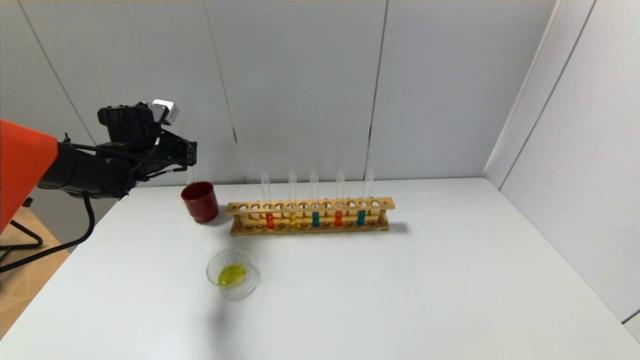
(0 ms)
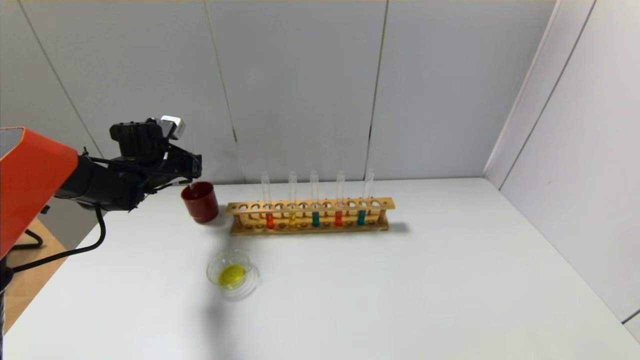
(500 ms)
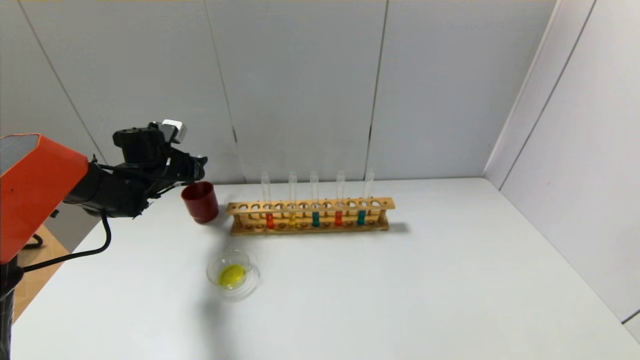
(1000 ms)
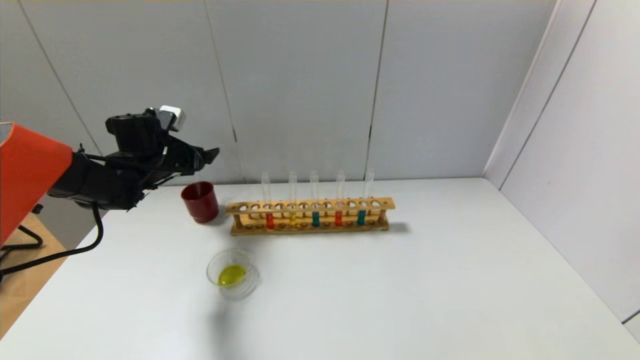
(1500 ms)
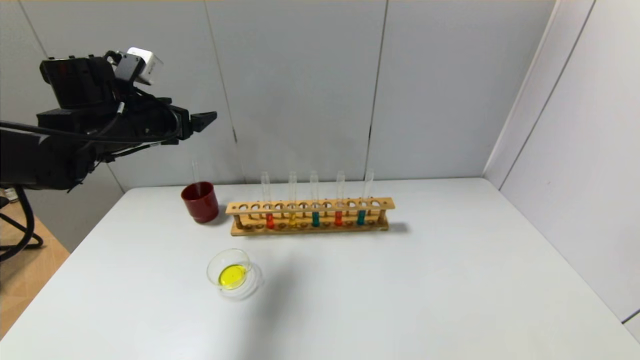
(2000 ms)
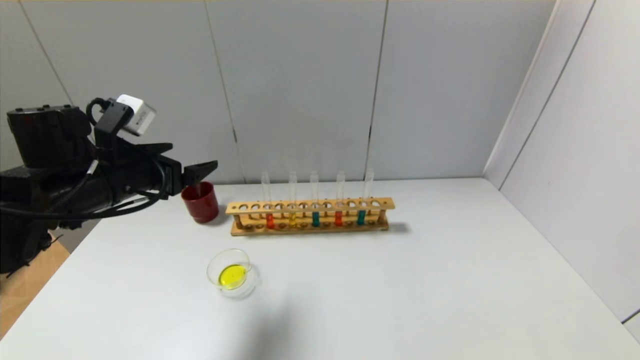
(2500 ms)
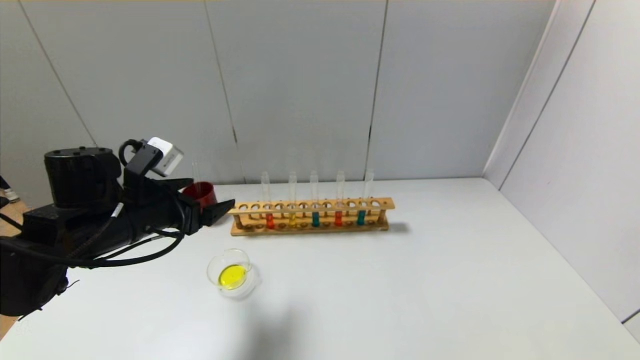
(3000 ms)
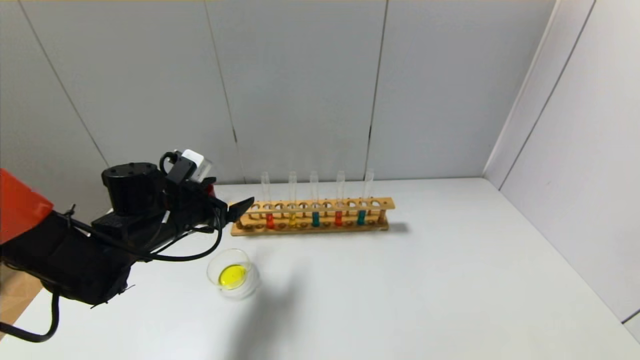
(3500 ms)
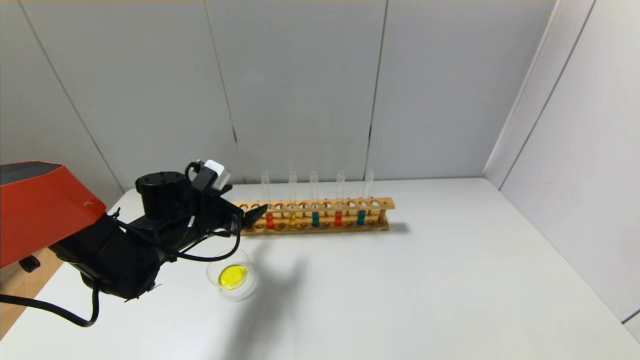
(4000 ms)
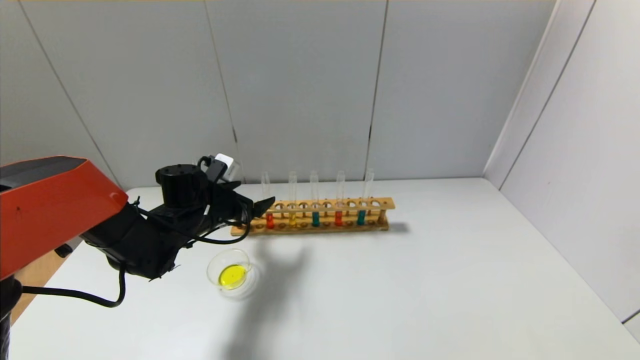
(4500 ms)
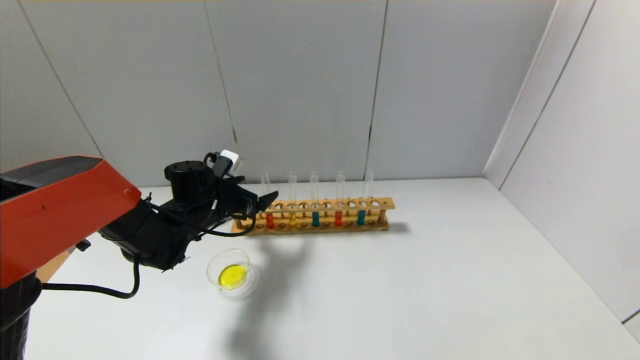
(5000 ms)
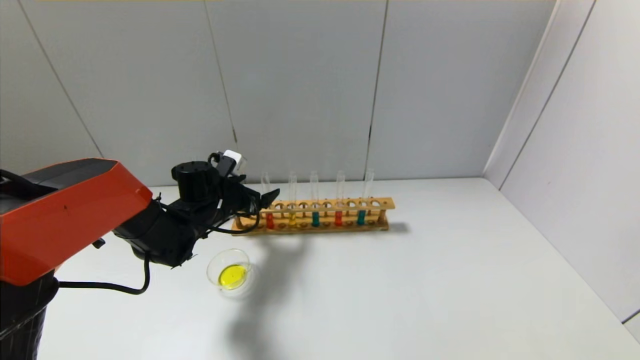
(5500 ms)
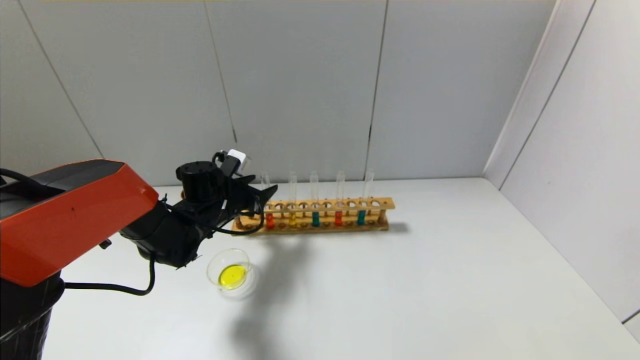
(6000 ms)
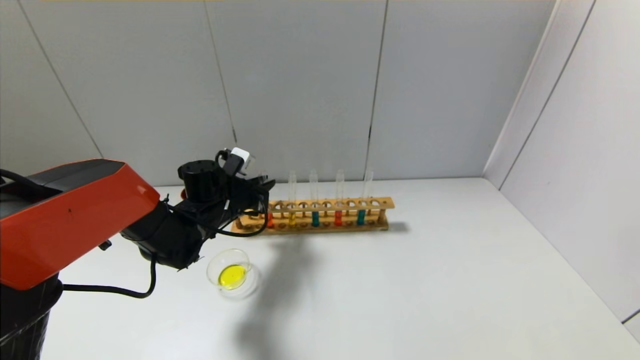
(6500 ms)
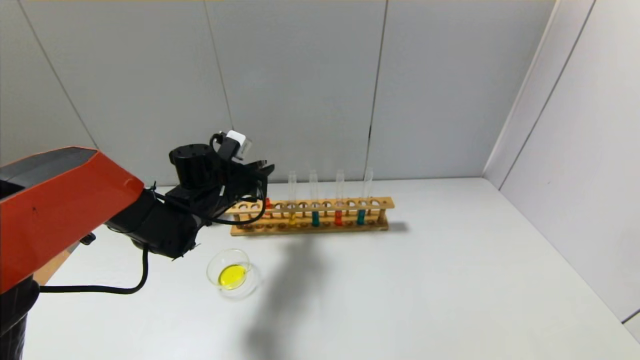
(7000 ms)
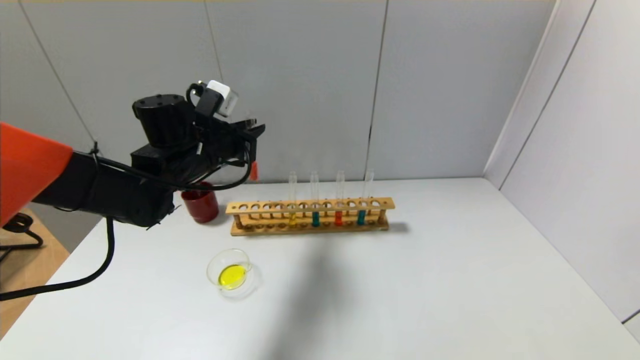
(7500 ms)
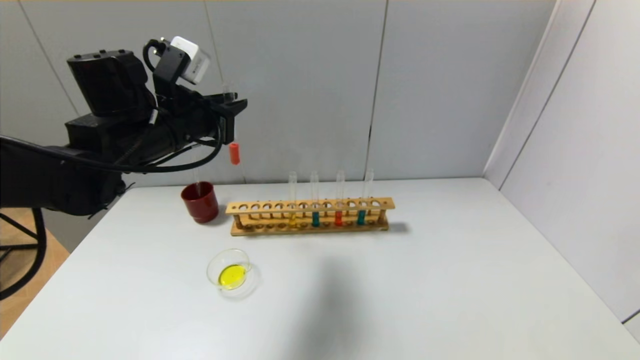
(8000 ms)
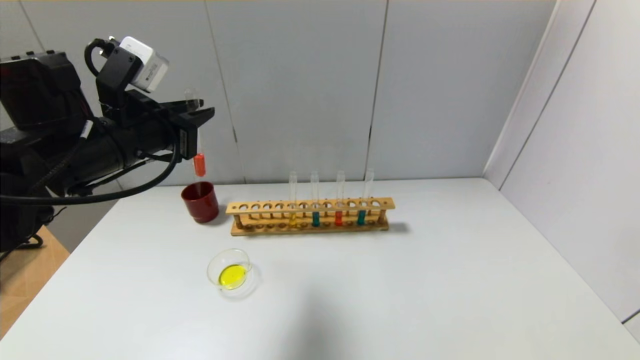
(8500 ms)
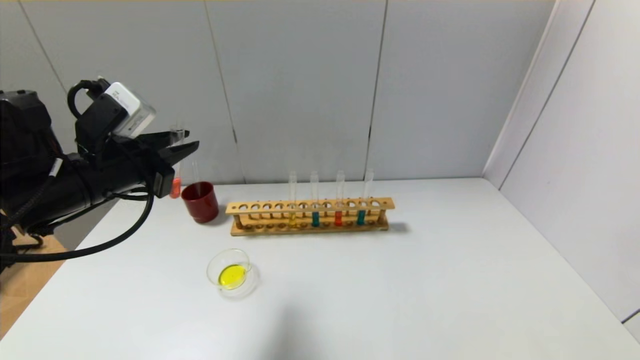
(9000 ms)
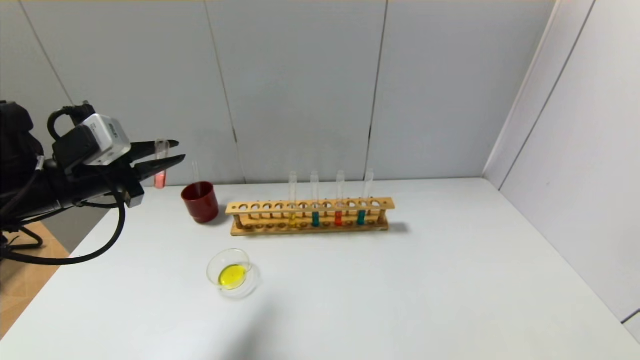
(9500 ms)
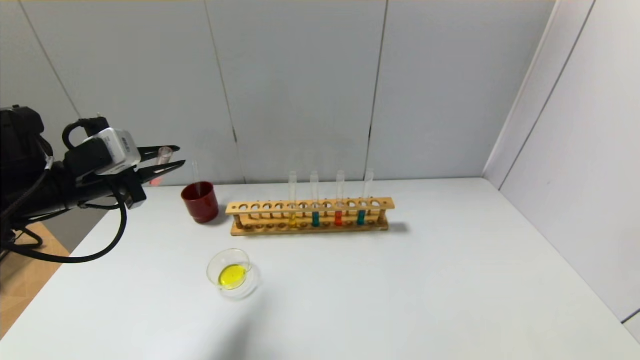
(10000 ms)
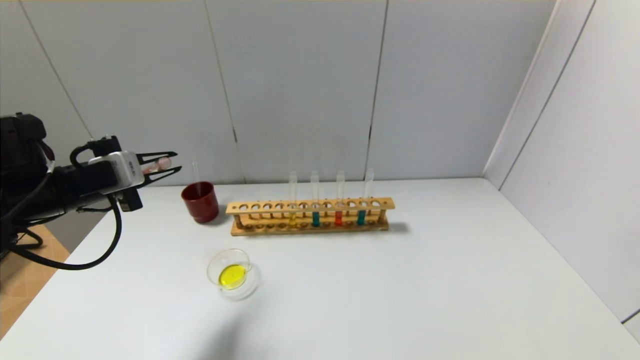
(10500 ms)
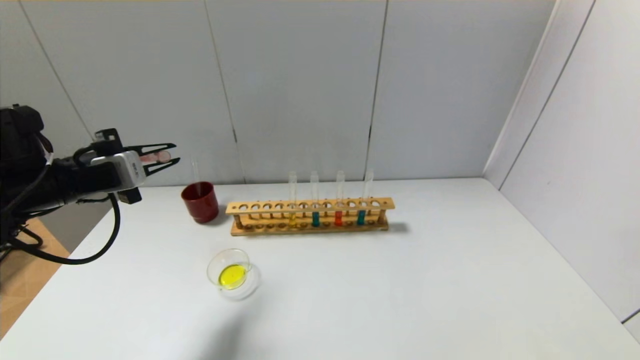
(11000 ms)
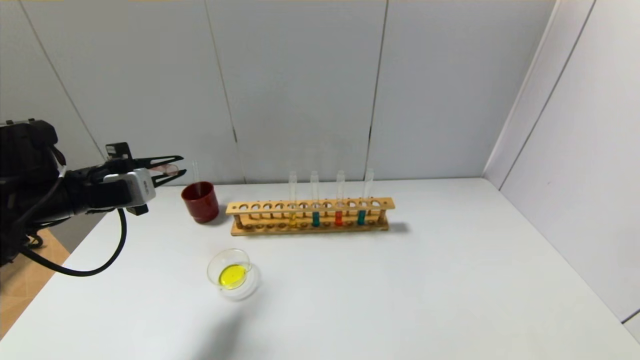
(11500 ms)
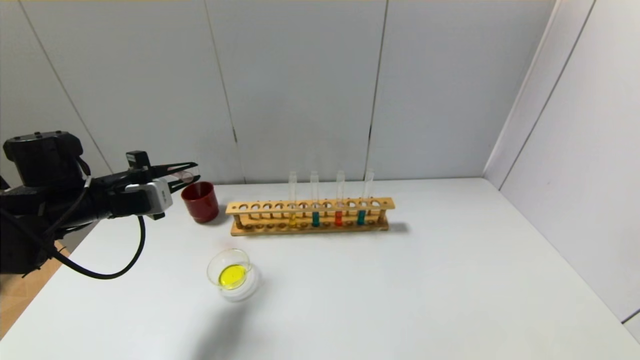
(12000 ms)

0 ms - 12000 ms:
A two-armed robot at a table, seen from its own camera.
Step, 1500 ms - 6000 ms: Grasp the red reagent with the left gripper.
0 ms - 2000 ms: The left gripper goes roughly 10 cm upward and backward, and opens up.
2000 ms - 4000 ms: The left gripper is displaced downward and to the right by approximately 15 cm.
4000 ms - 6000 ms: The left gripper goes some 5 cm forward, and closes up.
6000 ms - 8000 ms: The left gripper is displaced upward and backward by approximately 20 cm, and closes its fingers.
8000 ms - 10000 ms: The left gripper is displaced to the left and downward by about 15 cm.

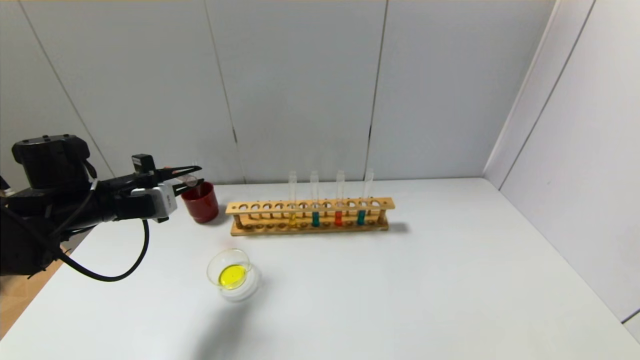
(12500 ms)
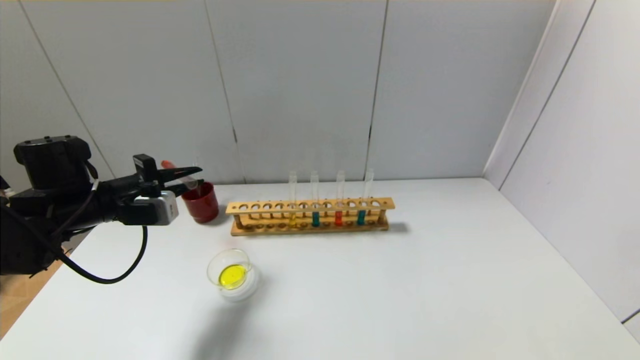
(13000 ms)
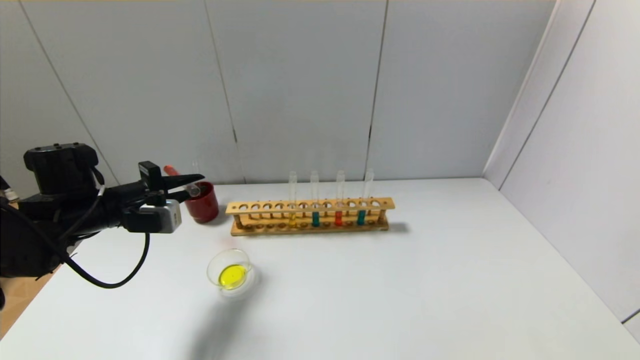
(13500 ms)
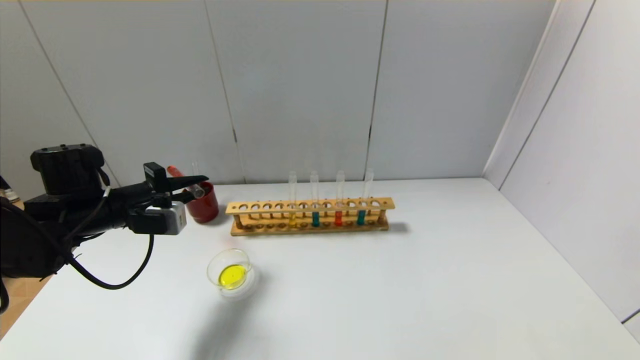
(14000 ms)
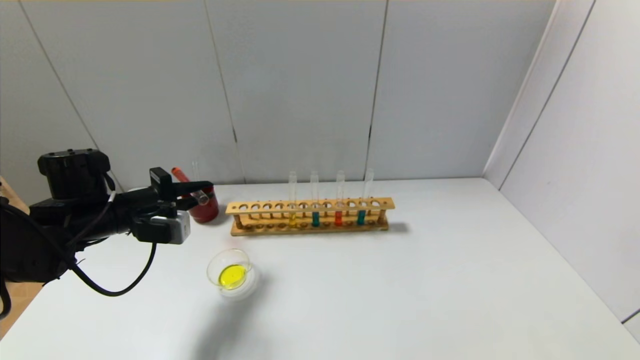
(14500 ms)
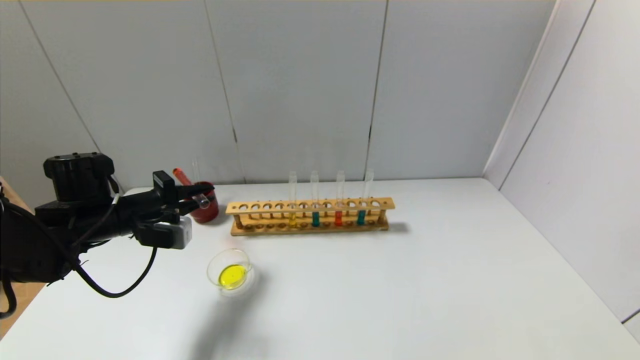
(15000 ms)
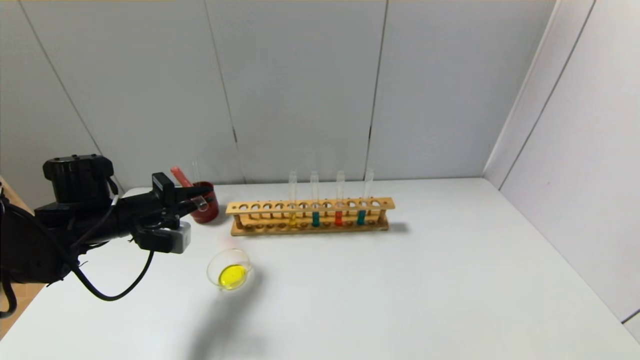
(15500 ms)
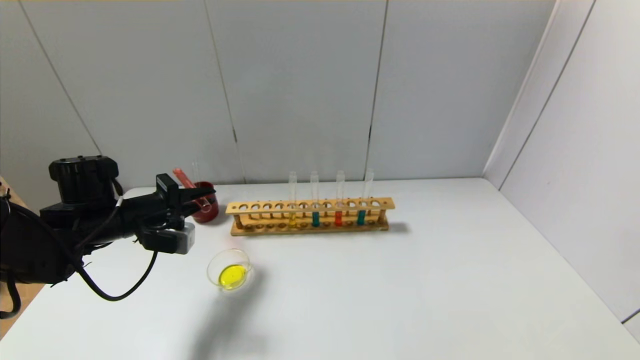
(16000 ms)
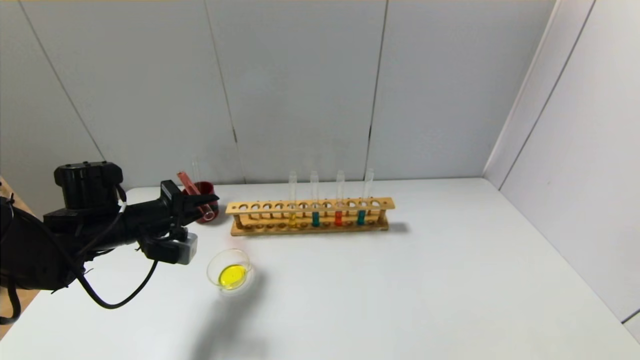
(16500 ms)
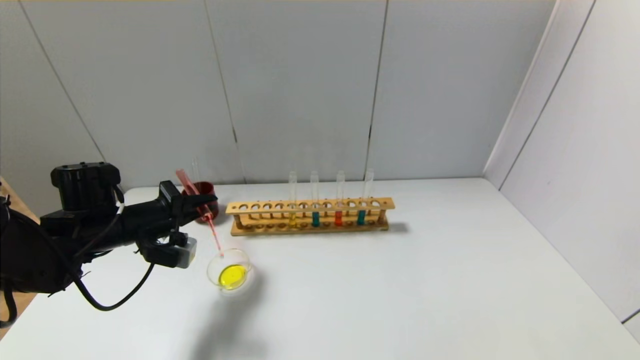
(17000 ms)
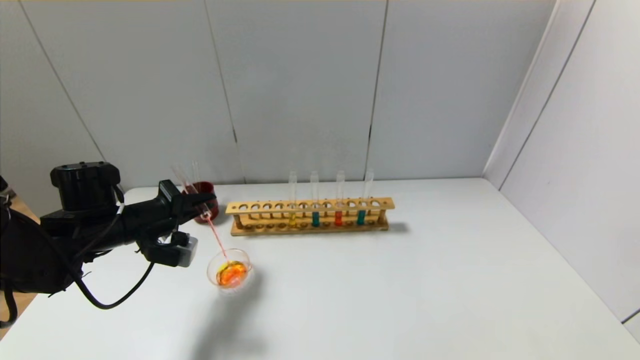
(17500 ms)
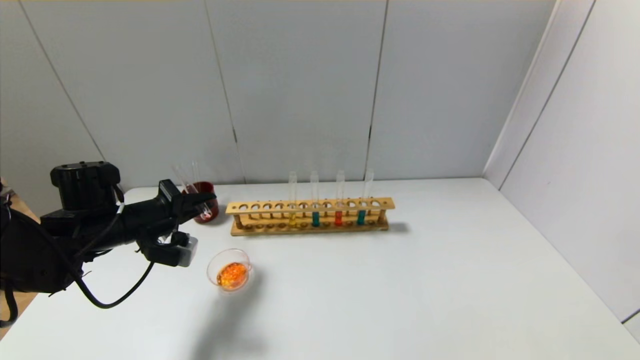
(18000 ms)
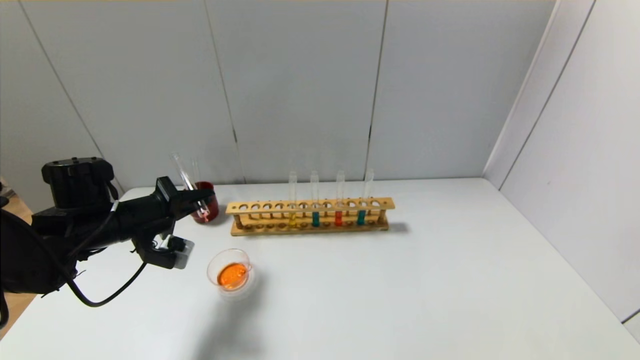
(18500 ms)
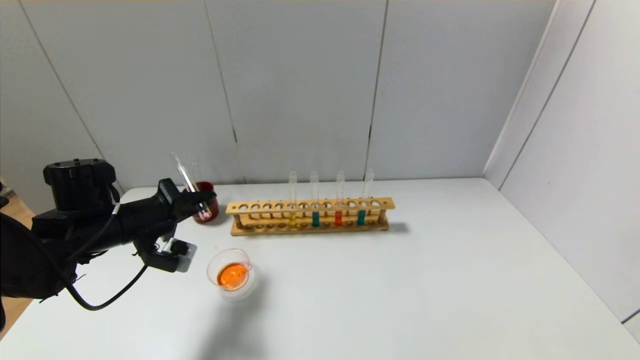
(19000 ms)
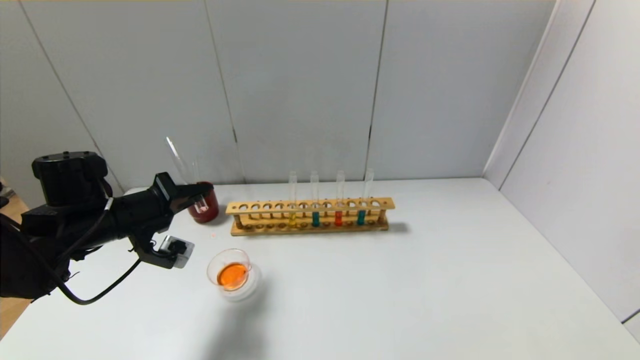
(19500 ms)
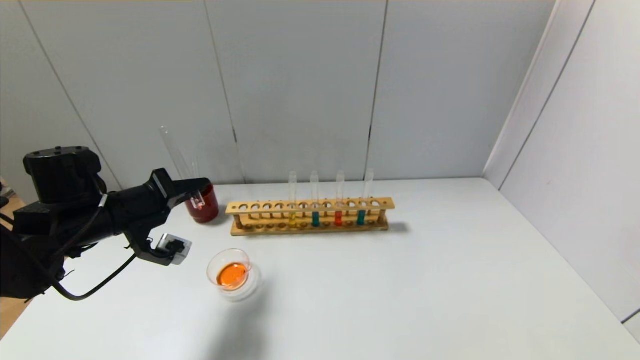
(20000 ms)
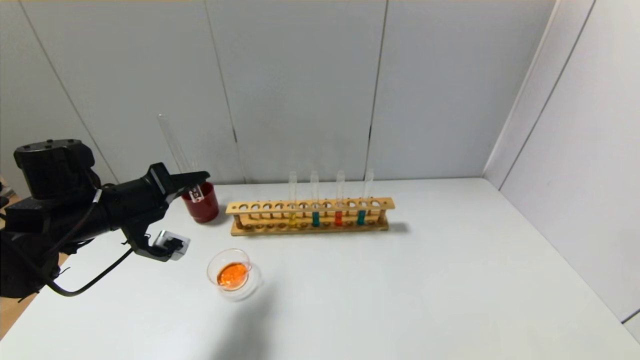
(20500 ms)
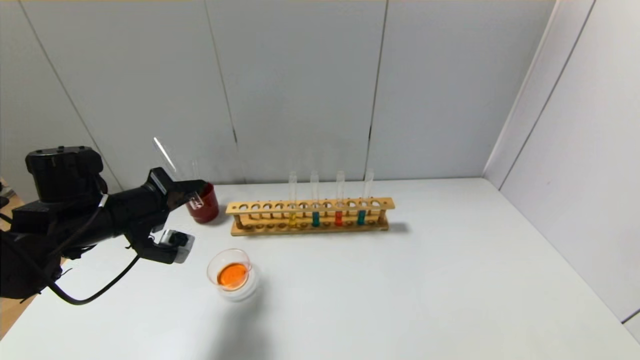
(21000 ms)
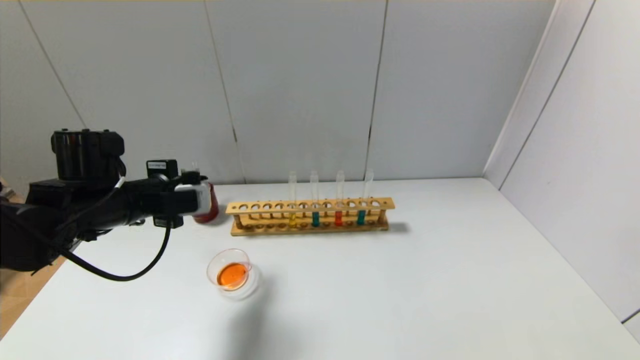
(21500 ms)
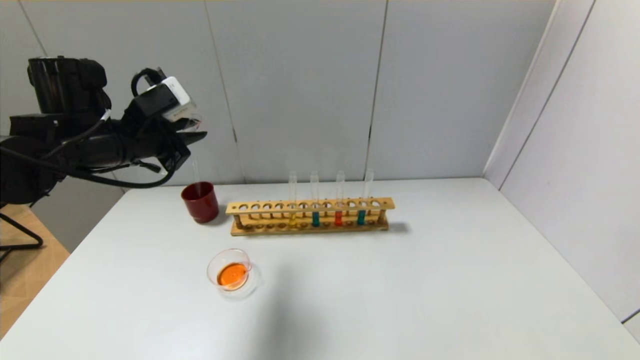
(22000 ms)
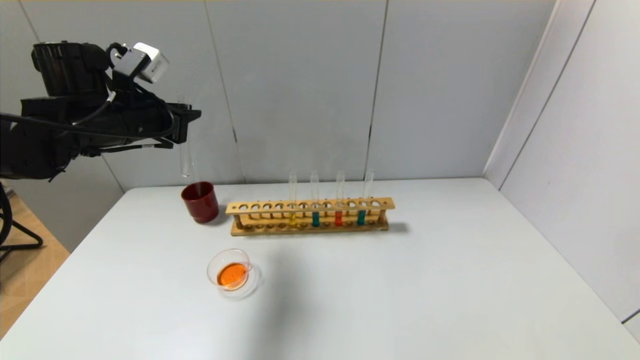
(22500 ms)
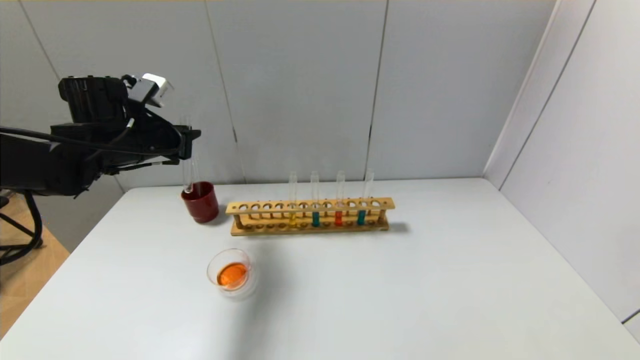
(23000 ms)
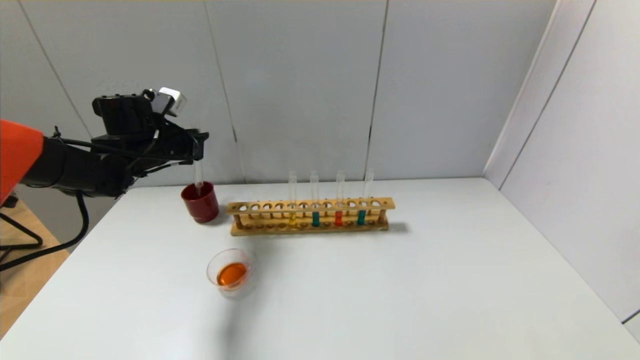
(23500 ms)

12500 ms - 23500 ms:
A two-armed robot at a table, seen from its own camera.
Step, 12500 ms - 20500 ms: Pour the red reagent into the graduated cylinder with the left gripper.
12500 ms - 16000 ms: The grippers move only a little.
16000 ms - 18000 ms: There are only small adjustments of the grippers.
21500 ms - 23500 ms: The left gripper moves forward, about 15 cm.
